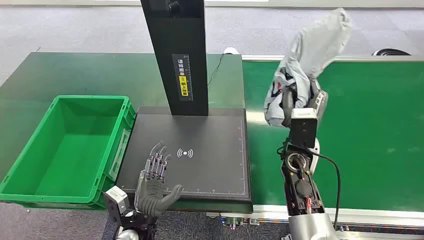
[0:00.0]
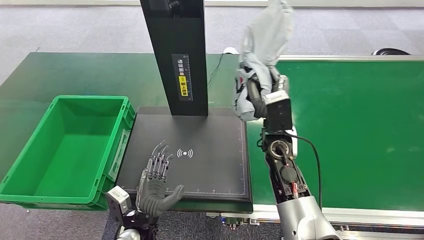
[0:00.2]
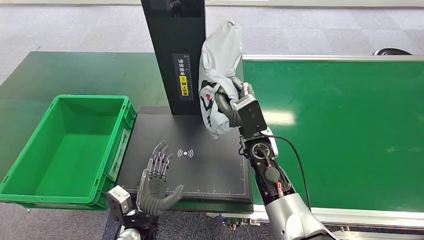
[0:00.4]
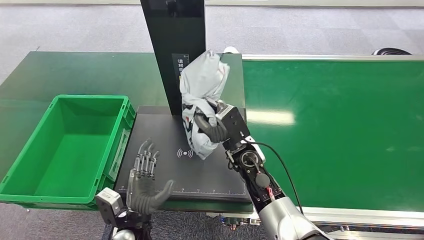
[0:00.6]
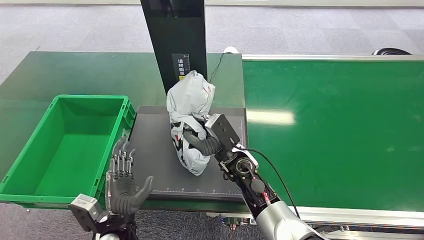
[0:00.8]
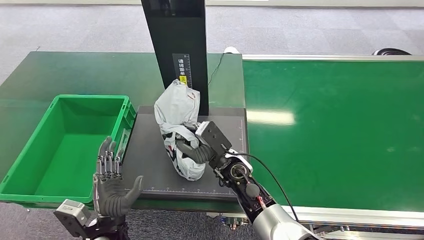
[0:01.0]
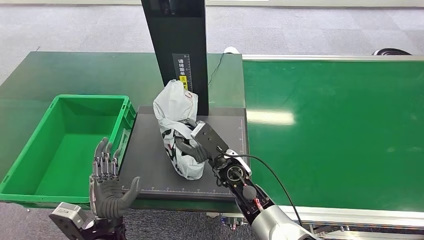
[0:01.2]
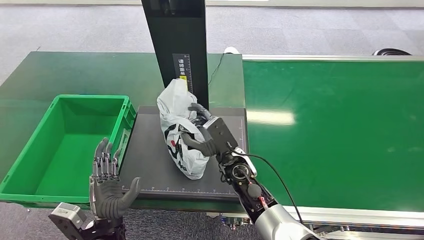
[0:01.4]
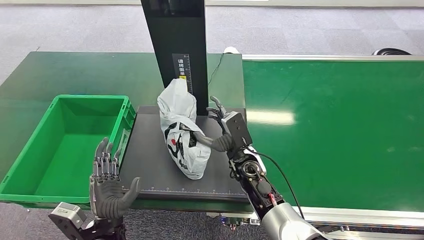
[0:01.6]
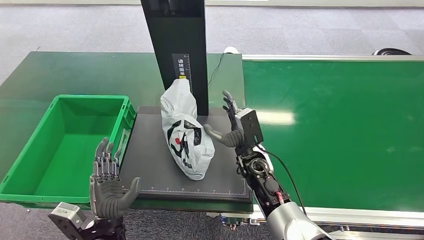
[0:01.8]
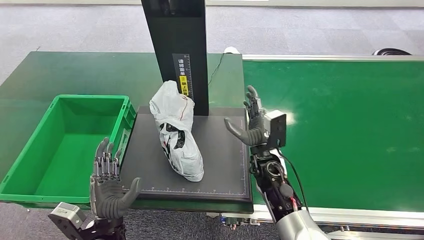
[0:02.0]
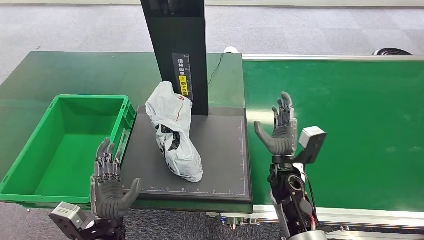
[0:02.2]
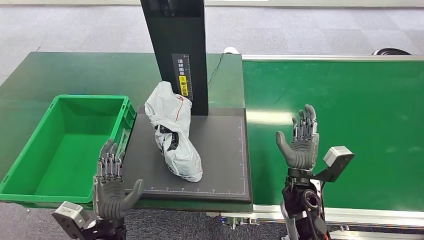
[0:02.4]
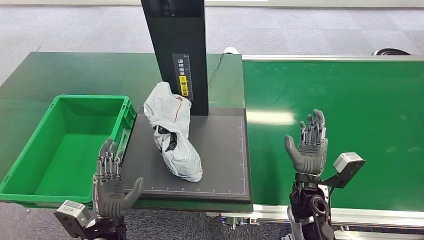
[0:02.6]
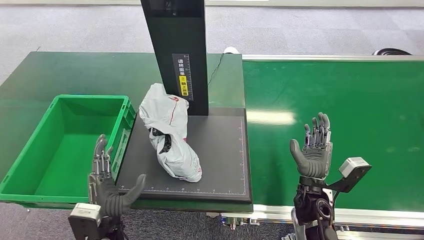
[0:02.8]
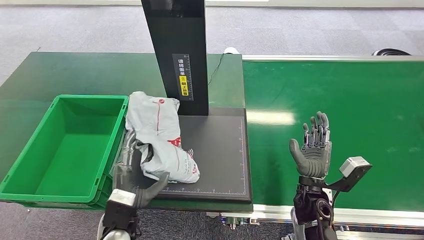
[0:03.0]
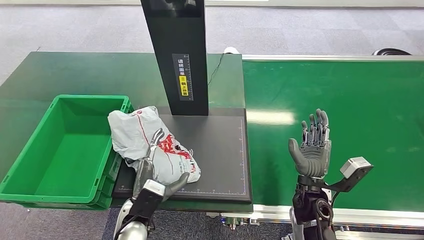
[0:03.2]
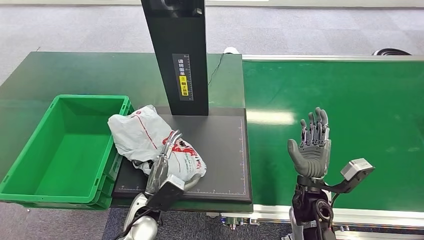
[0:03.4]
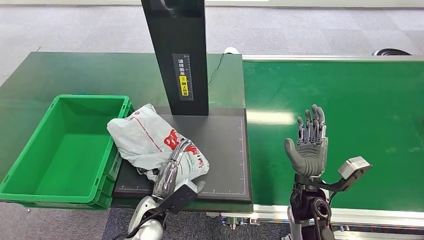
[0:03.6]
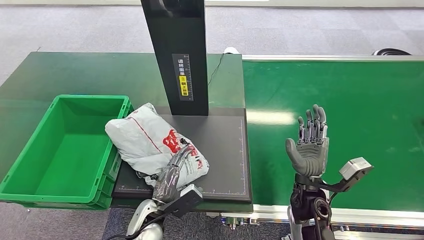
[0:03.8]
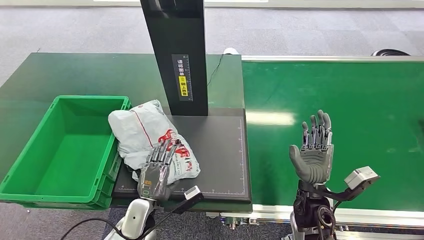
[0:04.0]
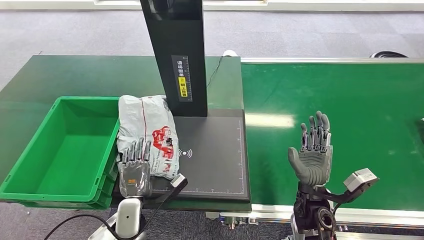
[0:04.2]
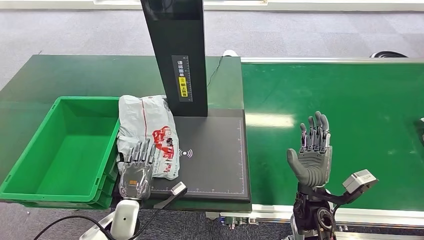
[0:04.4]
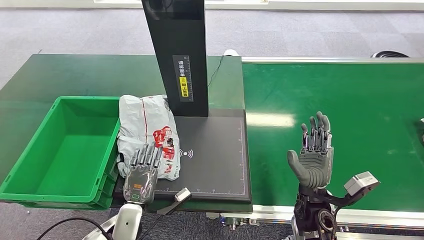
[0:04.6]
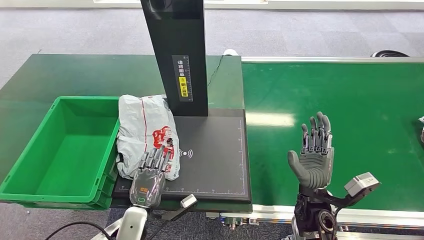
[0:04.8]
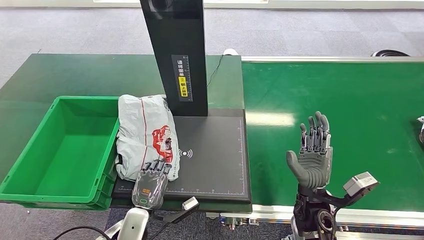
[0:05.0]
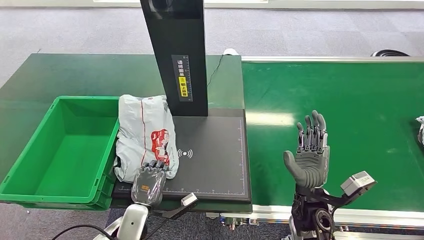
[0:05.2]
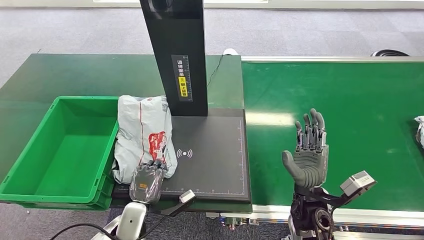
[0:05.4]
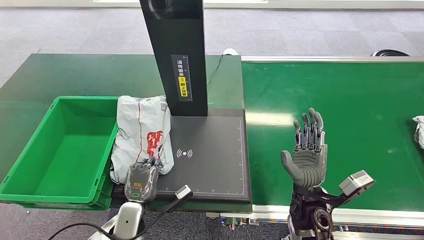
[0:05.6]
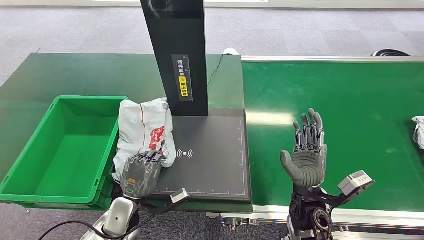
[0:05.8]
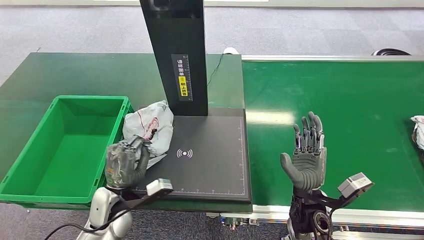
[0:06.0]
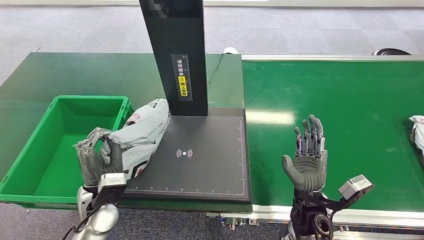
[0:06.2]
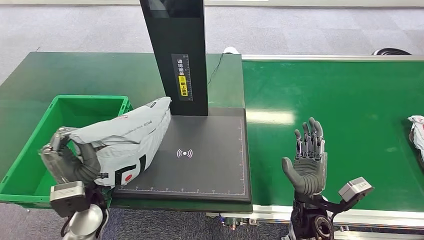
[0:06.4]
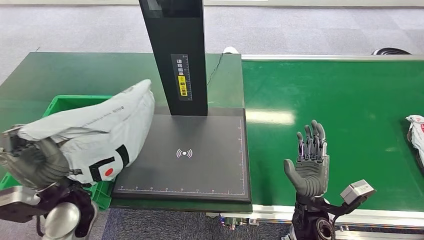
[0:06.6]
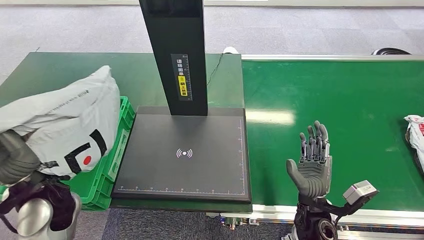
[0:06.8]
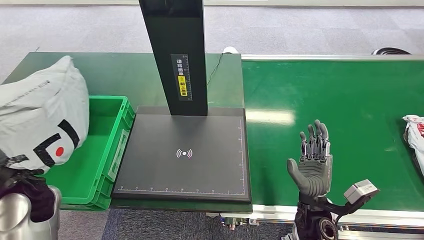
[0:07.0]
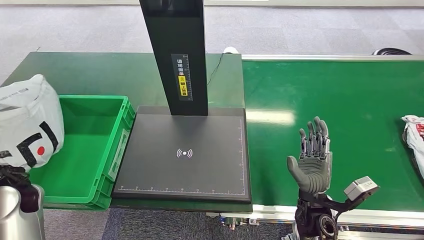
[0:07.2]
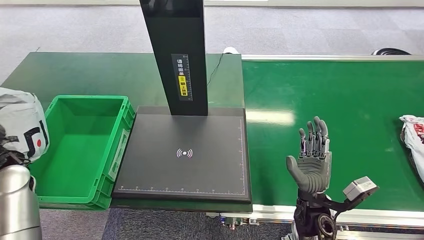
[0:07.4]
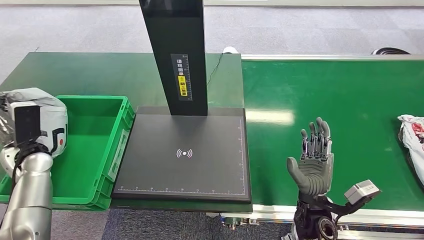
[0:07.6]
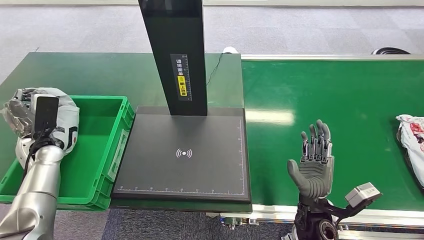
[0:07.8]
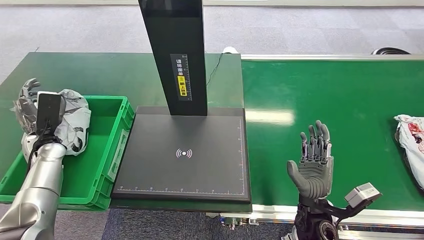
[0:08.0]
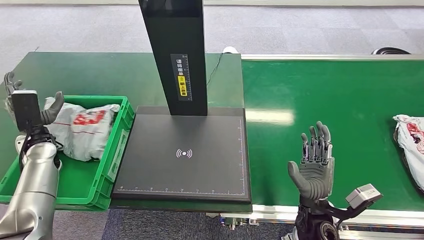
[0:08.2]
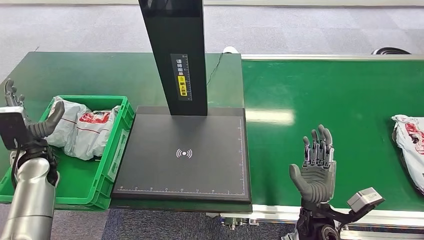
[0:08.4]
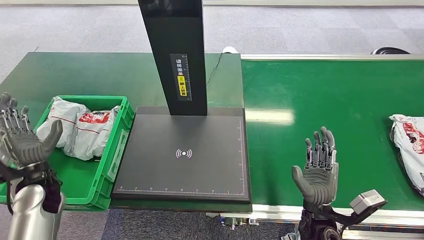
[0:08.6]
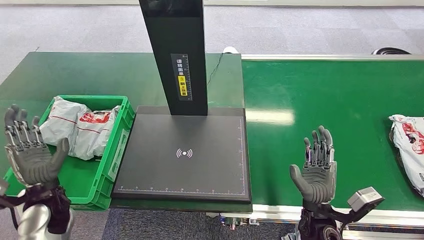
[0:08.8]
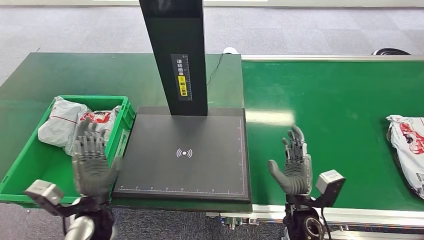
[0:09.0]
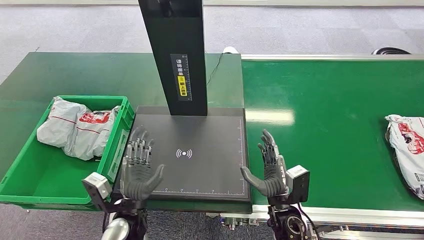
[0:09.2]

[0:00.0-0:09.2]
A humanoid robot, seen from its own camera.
Step, 0:00.0 to 0:00.2: Pick up the package from the conveyor belt.
Step, 0:09.0 to 0:09.2: Place the package into the parcel locker.
0:01.6 to 0:03.0: The right hand goes some 15 cm to the right and backward.
0:03.0 to 0:04.6: The left hand travels downward by roughly 5 cm.
